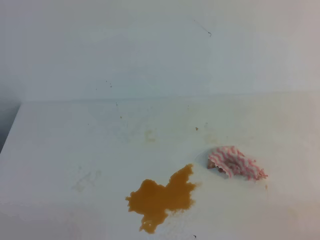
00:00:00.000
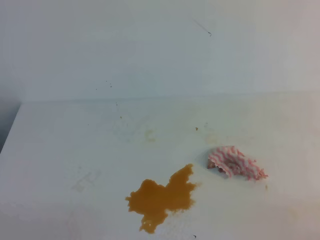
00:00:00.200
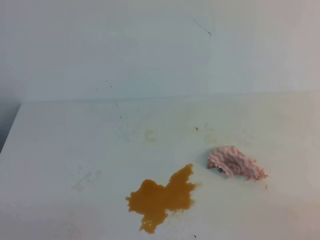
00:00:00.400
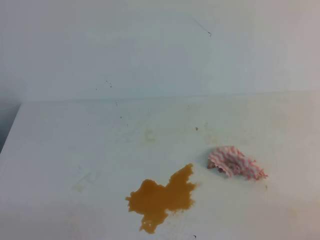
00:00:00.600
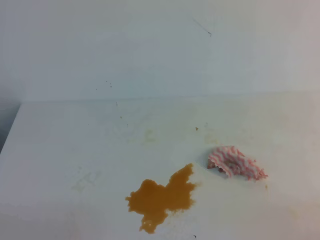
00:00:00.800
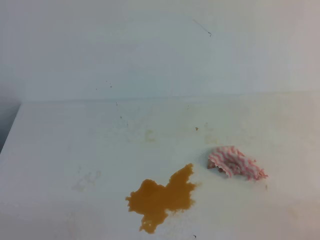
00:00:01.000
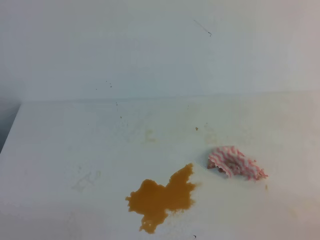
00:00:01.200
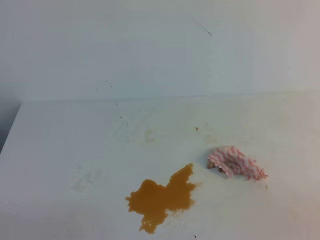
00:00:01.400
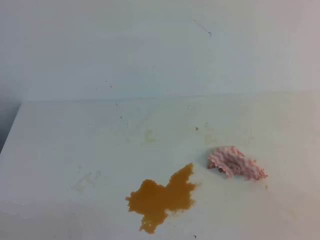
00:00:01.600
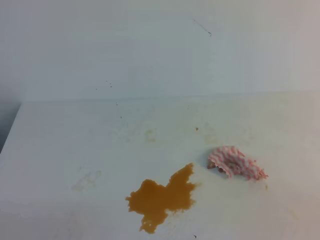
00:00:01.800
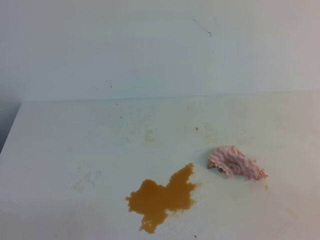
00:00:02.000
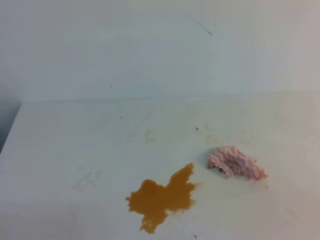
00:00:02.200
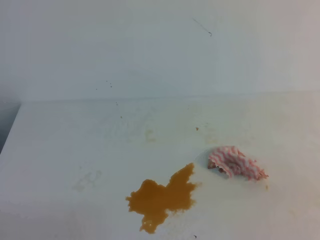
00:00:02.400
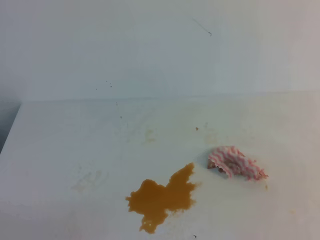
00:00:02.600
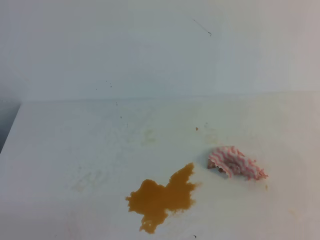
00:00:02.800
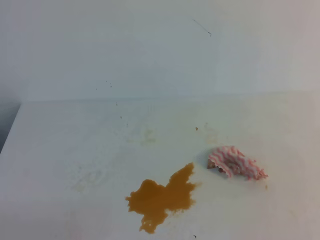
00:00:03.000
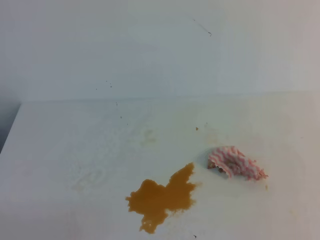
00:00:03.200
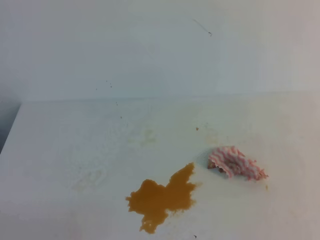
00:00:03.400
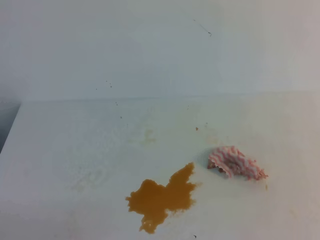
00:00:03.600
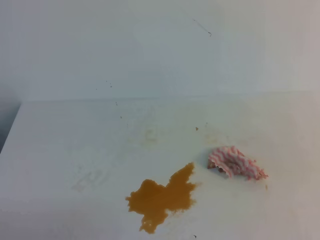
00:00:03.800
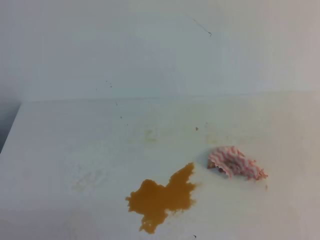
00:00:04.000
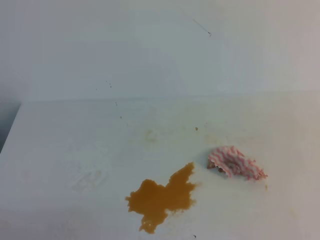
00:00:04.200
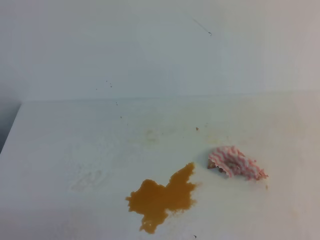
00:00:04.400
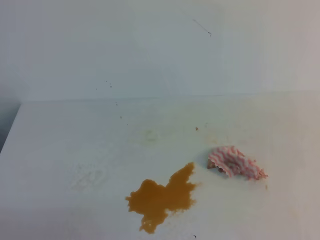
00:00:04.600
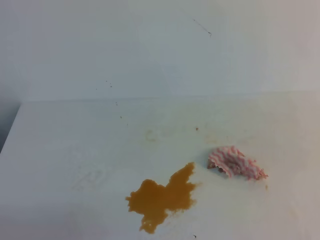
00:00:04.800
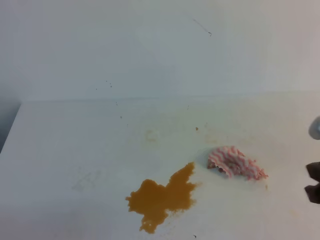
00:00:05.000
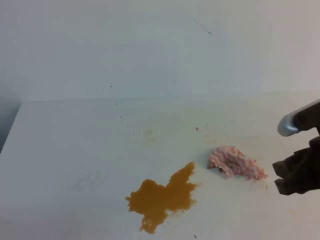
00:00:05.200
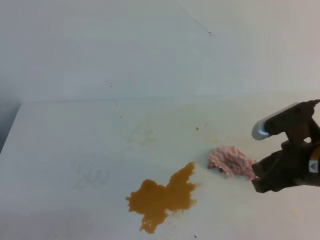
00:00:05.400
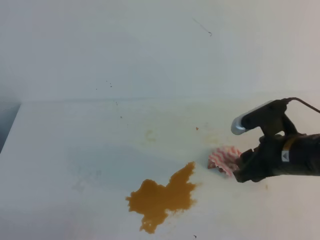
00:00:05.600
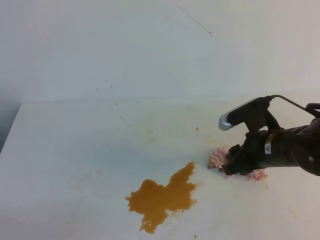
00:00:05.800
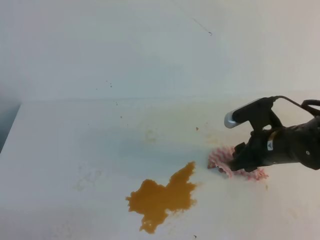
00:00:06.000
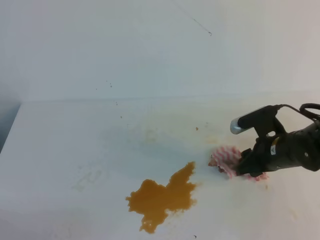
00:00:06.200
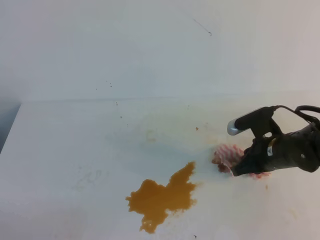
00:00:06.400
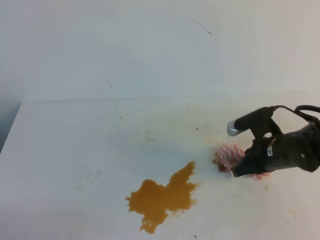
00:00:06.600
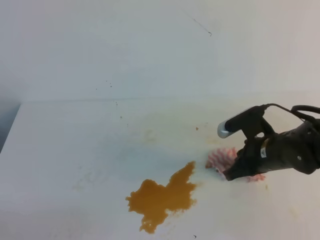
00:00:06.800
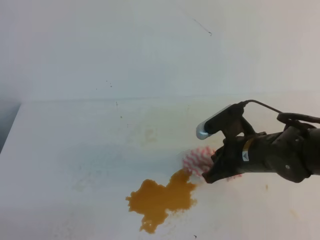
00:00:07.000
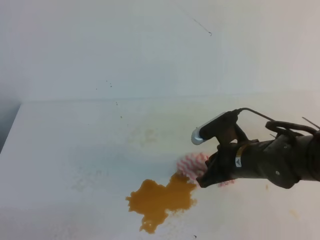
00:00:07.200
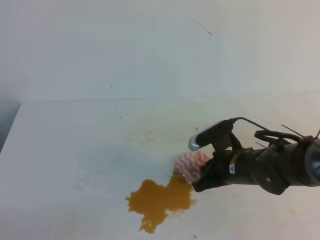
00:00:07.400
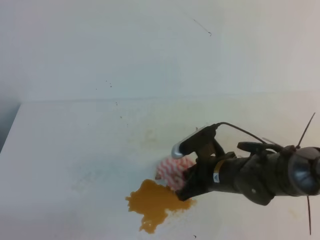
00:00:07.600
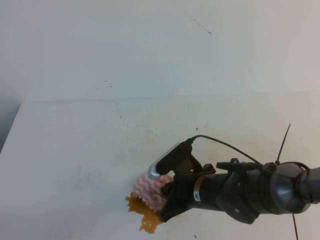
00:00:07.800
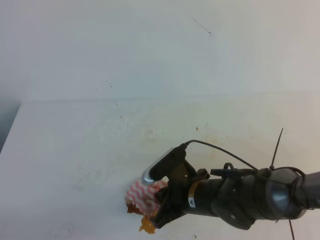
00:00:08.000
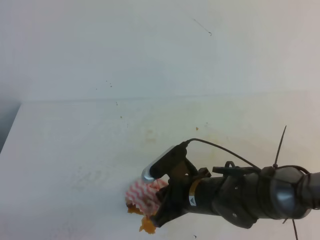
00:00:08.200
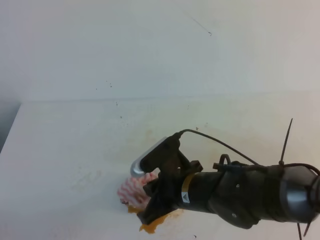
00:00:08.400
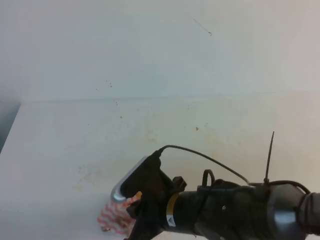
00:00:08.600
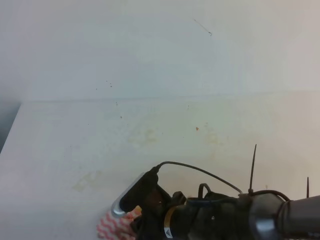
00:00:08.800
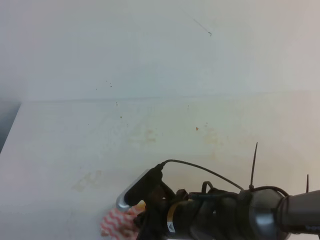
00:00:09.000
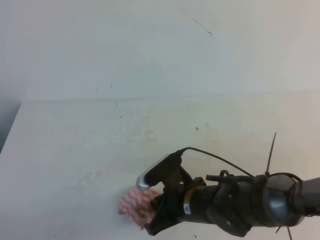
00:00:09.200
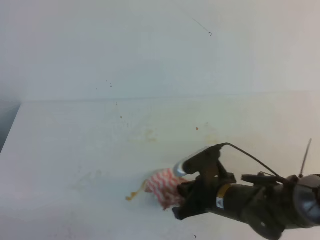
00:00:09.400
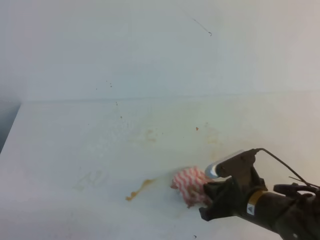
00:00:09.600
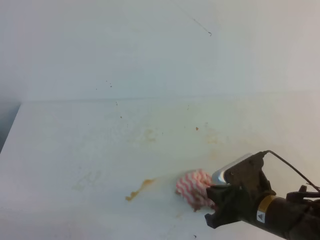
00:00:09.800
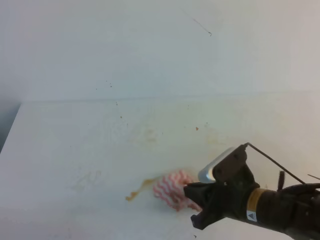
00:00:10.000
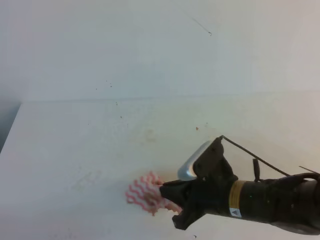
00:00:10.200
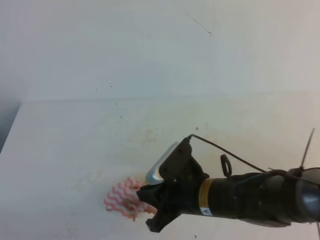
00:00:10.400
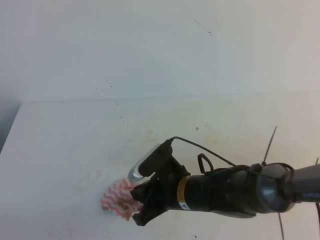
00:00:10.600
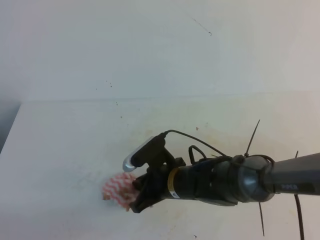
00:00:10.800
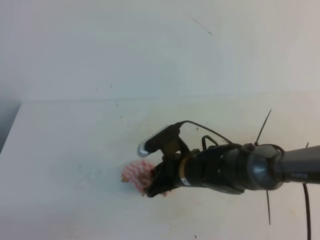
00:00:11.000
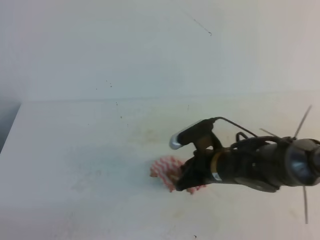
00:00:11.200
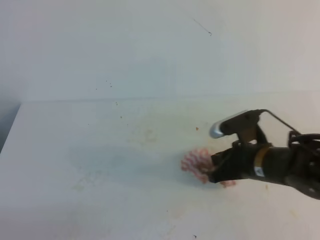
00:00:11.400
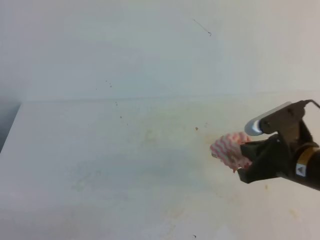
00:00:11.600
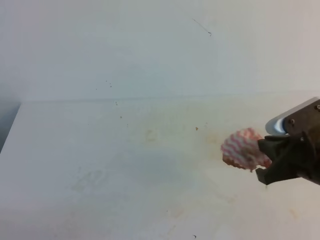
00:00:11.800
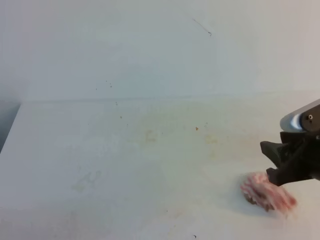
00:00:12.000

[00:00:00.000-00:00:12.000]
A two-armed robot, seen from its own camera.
00:00:04.400 to 00:00:06.000: The right gripper goes some 30 cm forward, downward and to the left, and opens up.
00:00:06.000 to 00:00:07.600: The right gripper moves to the left, approximately 10 cm, and closes its fingers.
00:00:07.600 to 00:00:09.000: The right gripper goes roughly 10 cm to the left and backward.
00:00:09.000 to 00:00:10.400: The right gripper moves to the right, about 5 cm.
00:00:10.400 to 00:00:12.000: The right gripper goes about 20 cm to the right and upward, and opens its fingers.

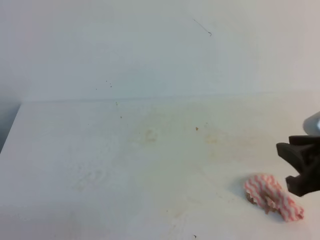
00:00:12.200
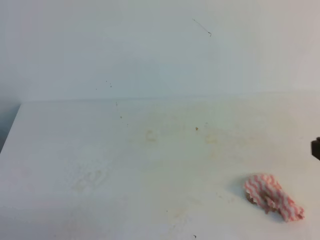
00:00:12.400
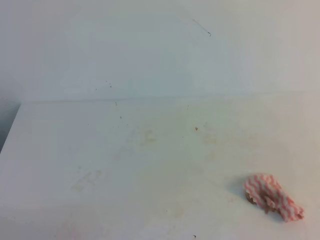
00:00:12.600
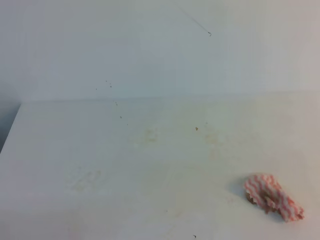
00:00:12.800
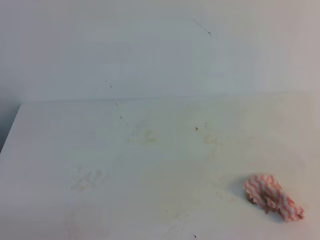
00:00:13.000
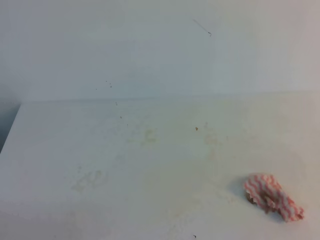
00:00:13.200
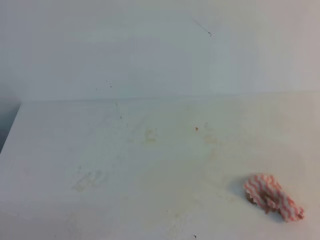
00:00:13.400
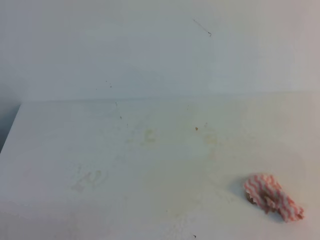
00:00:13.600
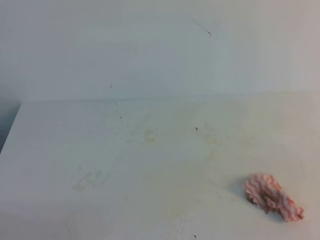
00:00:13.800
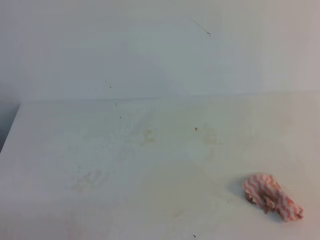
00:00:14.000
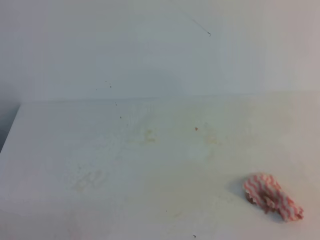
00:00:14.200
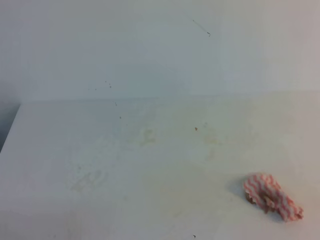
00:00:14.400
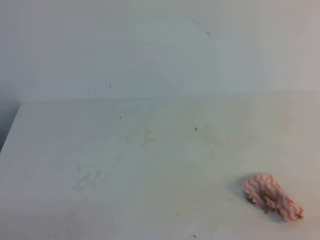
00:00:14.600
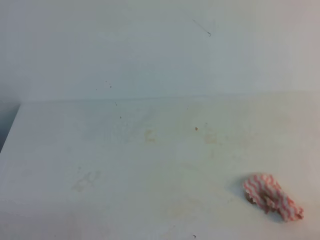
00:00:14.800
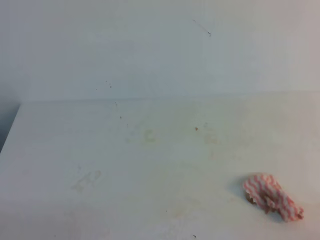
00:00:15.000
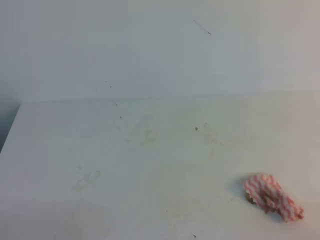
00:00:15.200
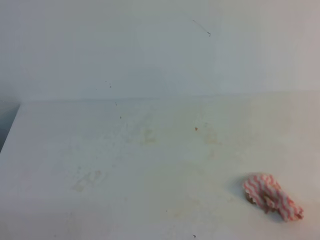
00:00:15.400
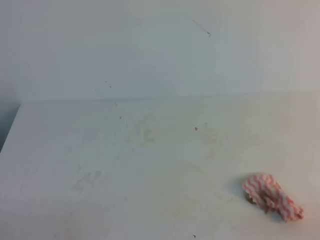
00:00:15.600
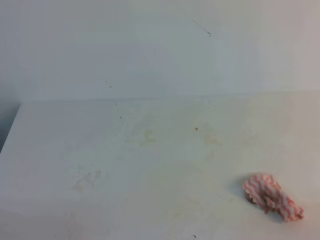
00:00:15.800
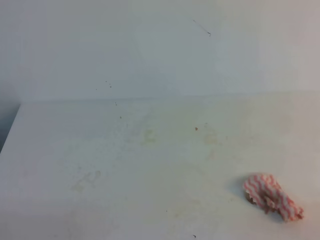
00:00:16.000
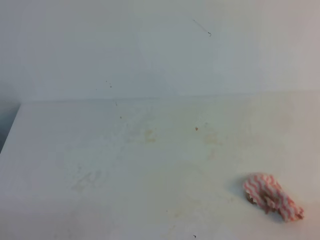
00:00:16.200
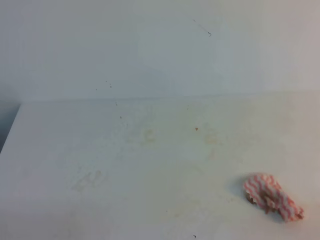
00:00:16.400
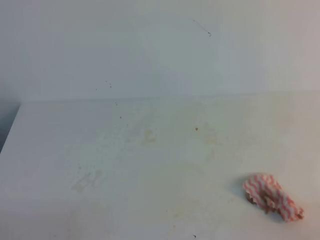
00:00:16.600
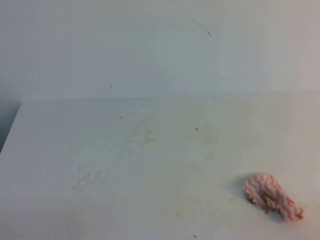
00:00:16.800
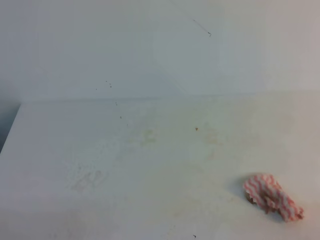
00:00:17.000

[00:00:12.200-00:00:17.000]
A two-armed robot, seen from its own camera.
00:00:12.200 to 00:00:13.800: The right gripper travels backward and to the right by about 20 cm, and closes its fingers.
